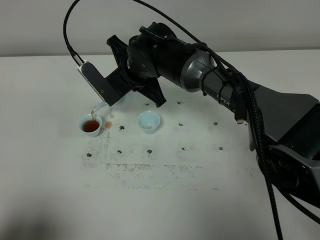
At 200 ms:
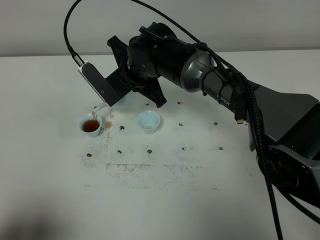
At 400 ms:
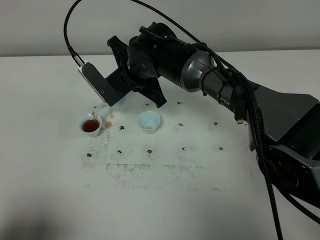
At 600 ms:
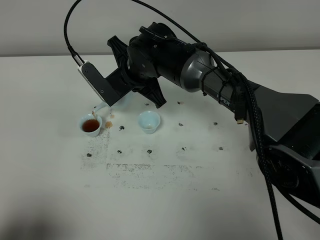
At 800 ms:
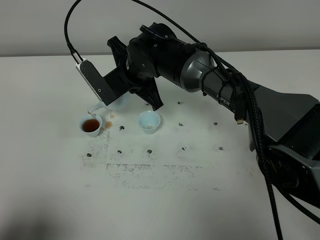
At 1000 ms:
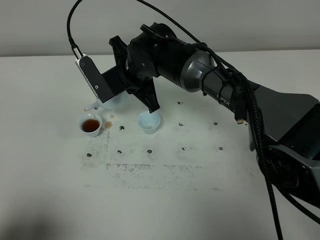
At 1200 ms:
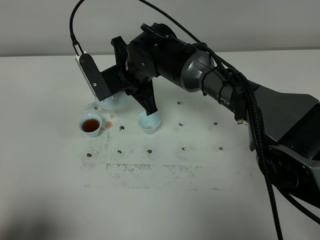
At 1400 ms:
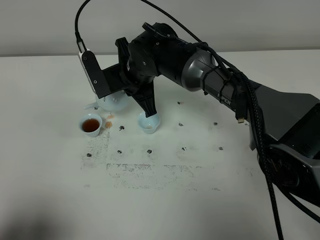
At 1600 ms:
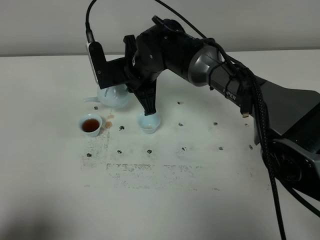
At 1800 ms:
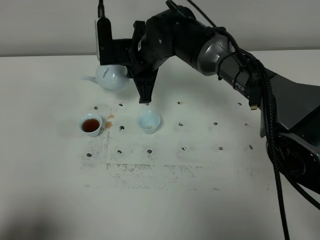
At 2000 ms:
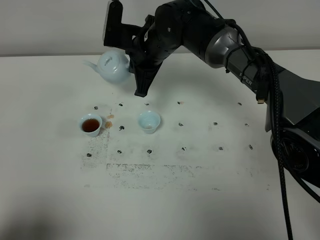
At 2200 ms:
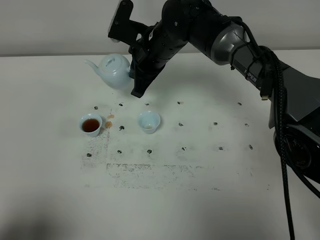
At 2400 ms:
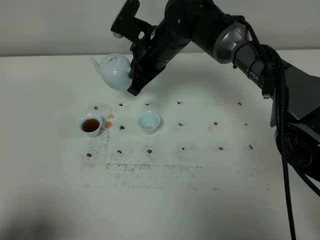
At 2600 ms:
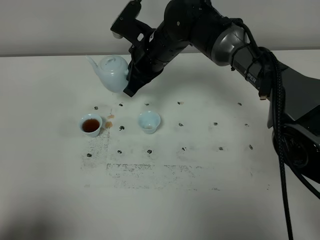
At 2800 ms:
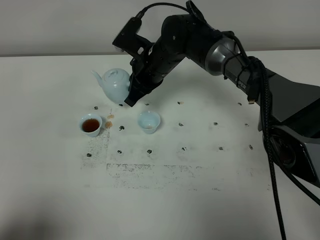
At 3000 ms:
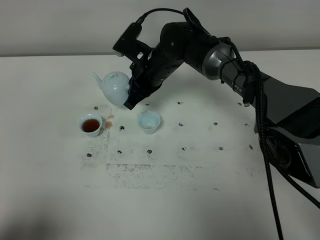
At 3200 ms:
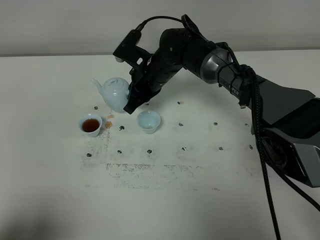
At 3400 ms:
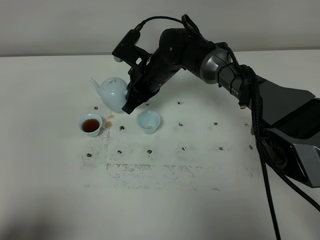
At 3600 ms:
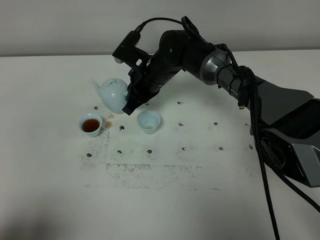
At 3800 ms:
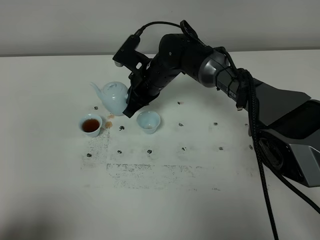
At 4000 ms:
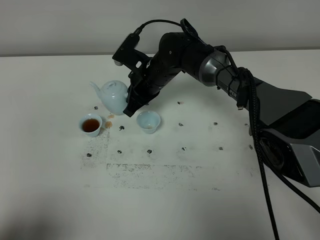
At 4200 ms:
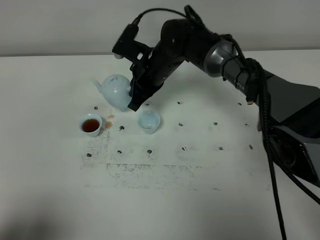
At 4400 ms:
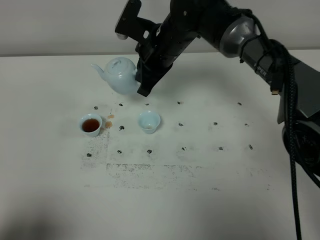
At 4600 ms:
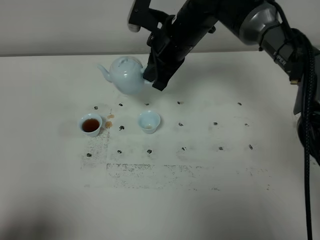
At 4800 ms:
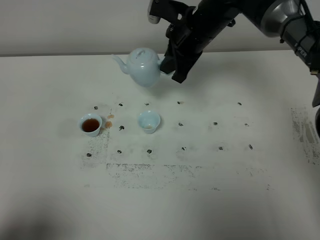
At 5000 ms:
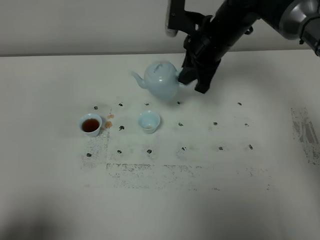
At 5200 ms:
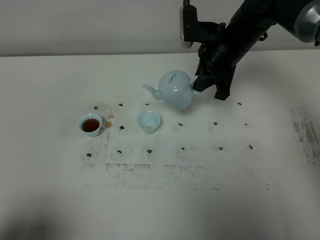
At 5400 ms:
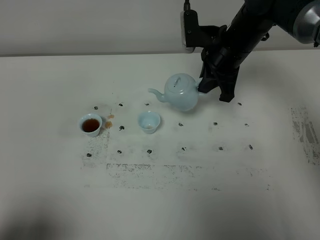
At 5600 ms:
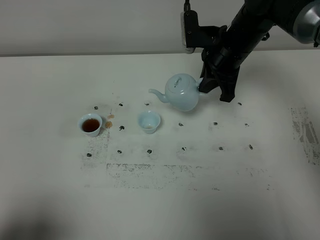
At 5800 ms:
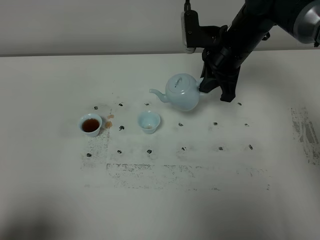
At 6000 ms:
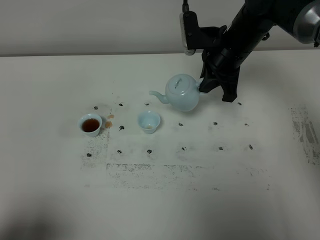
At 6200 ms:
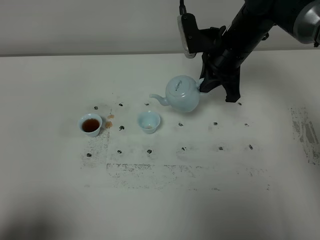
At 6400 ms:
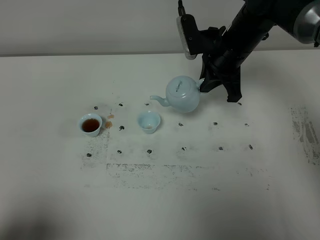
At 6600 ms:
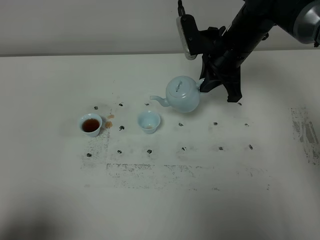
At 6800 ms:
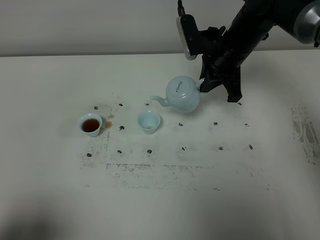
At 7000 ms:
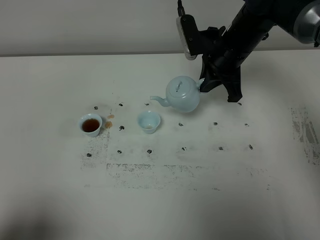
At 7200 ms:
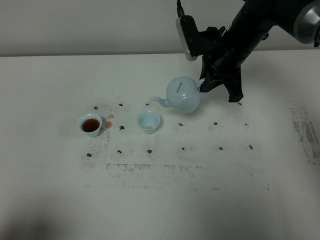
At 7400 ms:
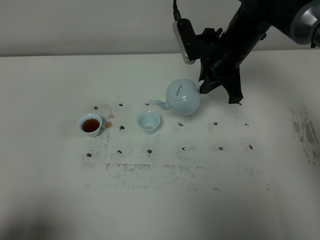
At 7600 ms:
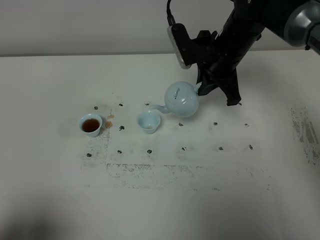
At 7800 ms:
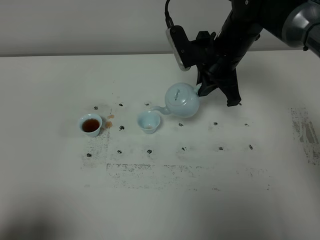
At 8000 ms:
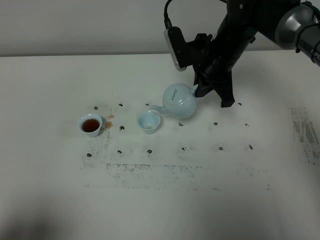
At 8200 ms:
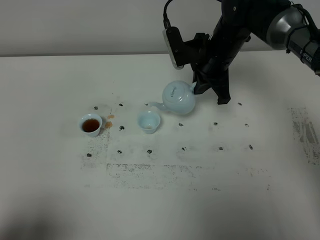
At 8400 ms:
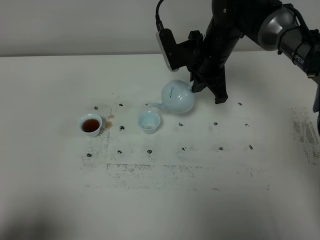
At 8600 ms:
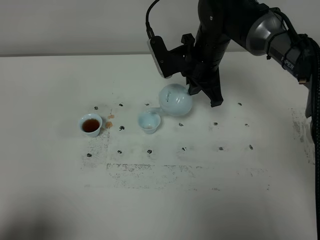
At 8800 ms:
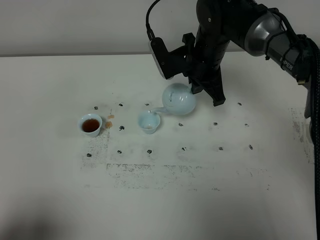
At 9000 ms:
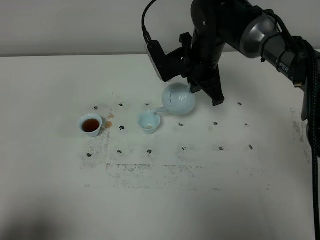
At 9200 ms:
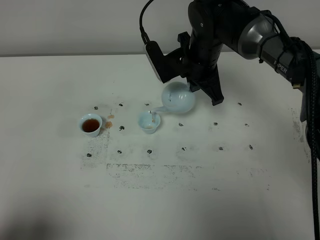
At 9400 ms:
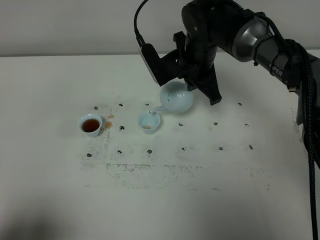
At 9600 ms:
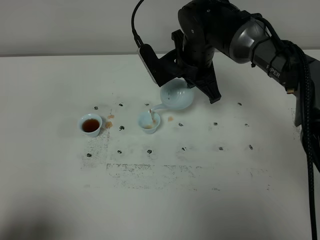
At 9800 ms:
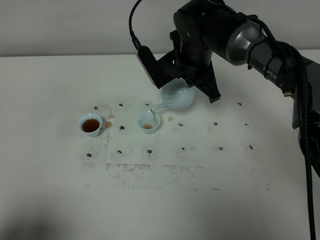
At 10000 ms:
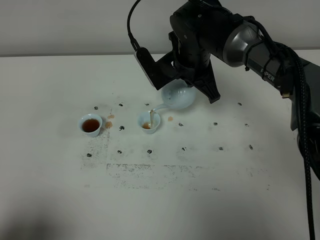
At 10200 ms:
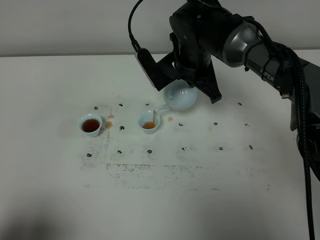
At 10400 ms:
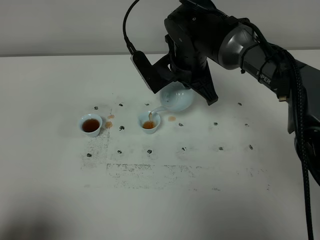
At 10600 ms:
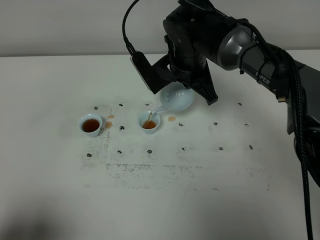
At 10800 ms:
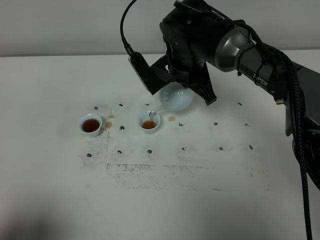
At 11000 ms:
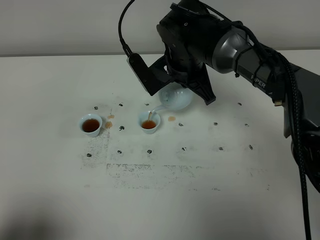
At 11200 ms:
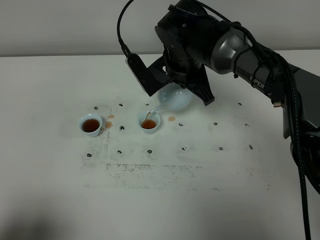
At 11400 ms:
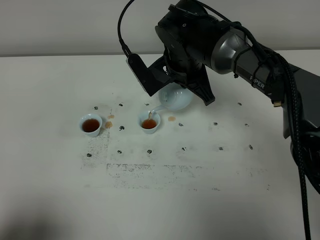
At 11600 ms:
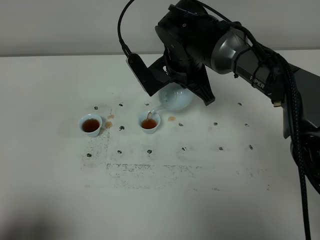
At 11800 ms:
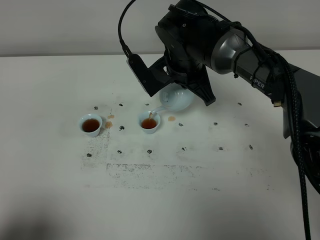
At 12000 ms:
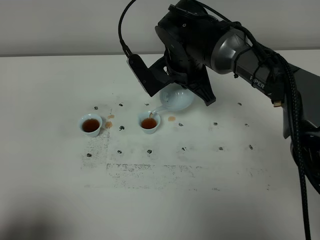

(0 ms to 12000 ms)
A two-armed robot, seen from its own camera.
Task of the whole recording: grasp the blue porcelain teapot and pour the tea into the two blue porcelain teacups one by one, put the blue porcelain teapot back in its original place.
1600 ms - 3000 ms: The right gripper moves about 5 cm.
3000 ms - 4400 ms: The right gripper shifts some 5 cm upward.
4400 ms - 6000 ms: The right gripper goes roughly 10 cm to the right.
6000 ms - 7600 ms: There are only small adjustments of the grippers.
7600 ms - 9000 ms: There are only small adjustments of the grippers.
9000 ms - 10400 ms: There are only small adjustments of the grippers.
10400 ms - 12000 ms: Both grippers stay about where they are.

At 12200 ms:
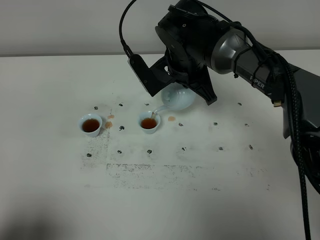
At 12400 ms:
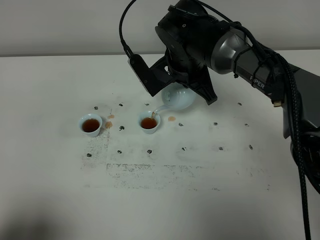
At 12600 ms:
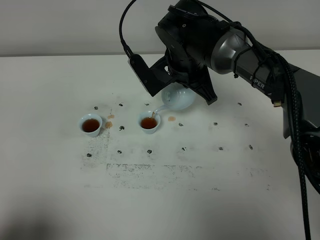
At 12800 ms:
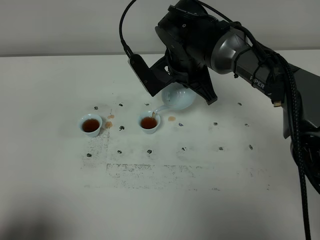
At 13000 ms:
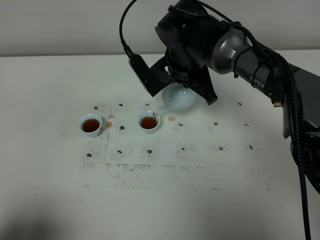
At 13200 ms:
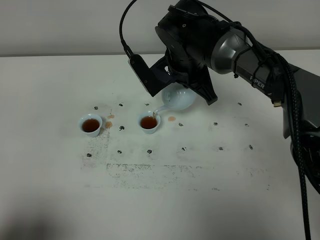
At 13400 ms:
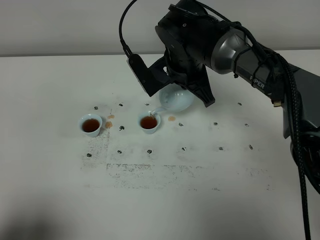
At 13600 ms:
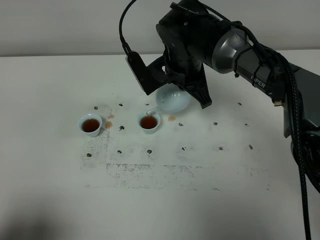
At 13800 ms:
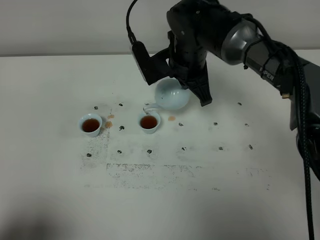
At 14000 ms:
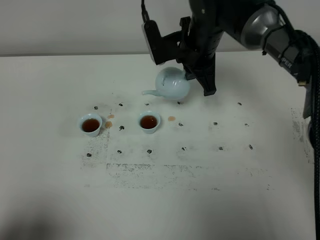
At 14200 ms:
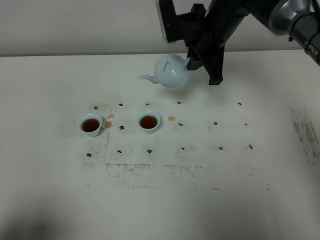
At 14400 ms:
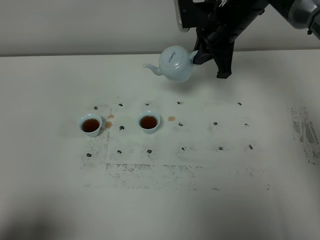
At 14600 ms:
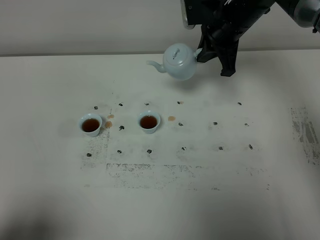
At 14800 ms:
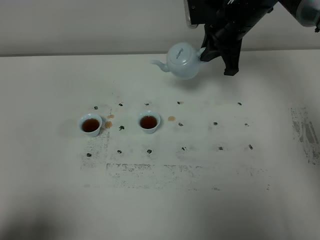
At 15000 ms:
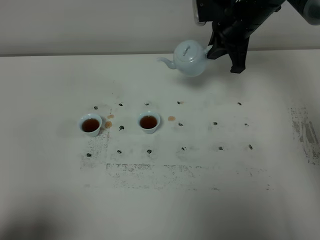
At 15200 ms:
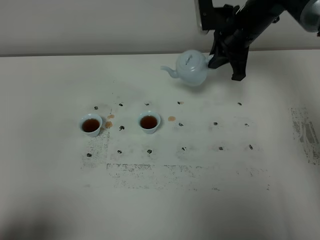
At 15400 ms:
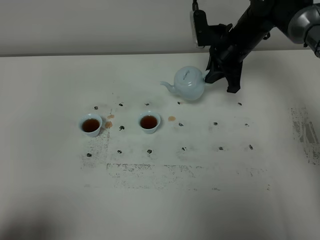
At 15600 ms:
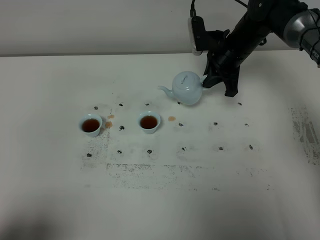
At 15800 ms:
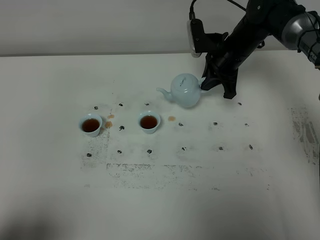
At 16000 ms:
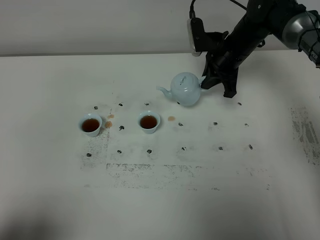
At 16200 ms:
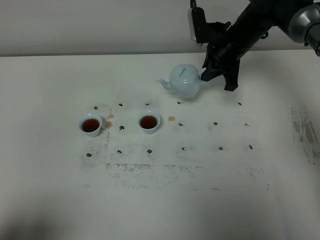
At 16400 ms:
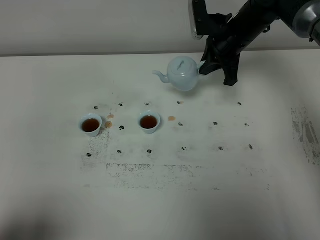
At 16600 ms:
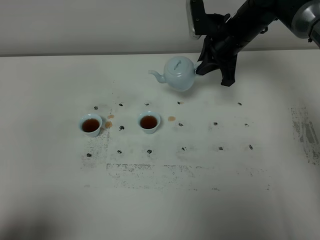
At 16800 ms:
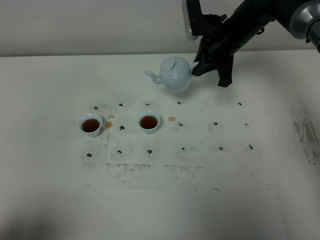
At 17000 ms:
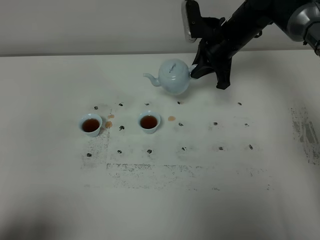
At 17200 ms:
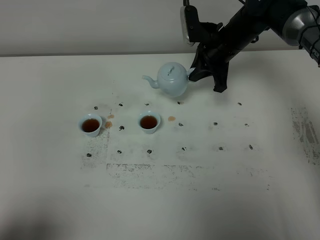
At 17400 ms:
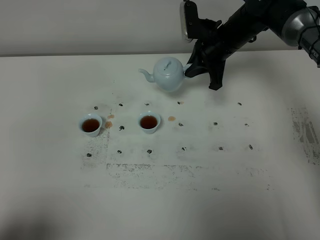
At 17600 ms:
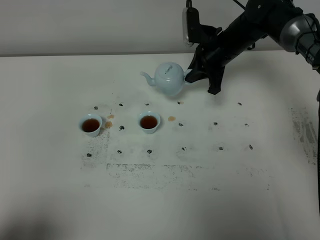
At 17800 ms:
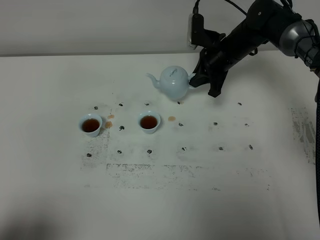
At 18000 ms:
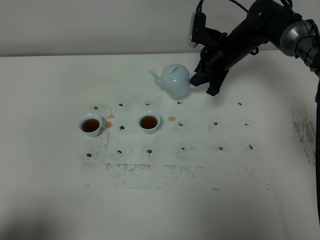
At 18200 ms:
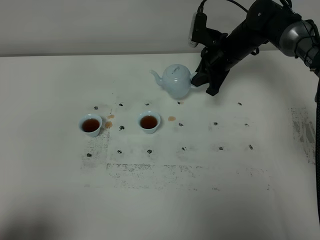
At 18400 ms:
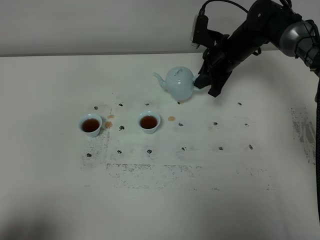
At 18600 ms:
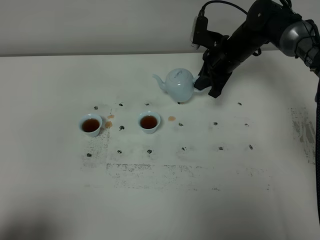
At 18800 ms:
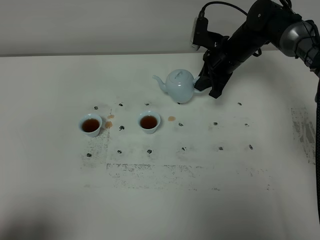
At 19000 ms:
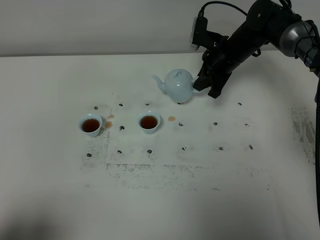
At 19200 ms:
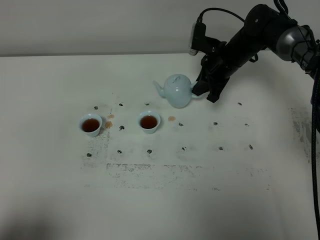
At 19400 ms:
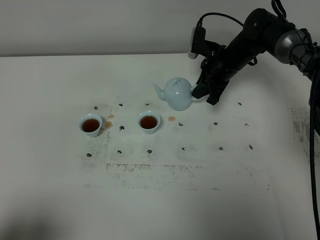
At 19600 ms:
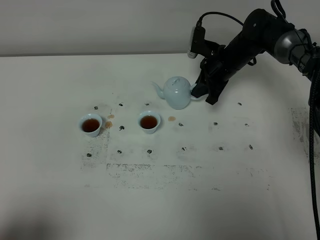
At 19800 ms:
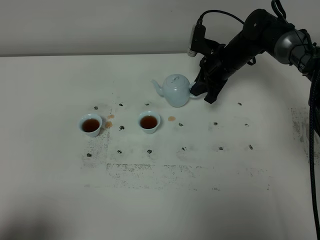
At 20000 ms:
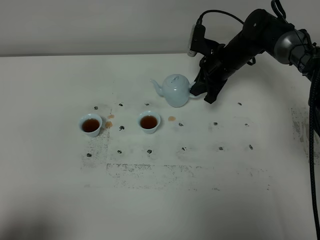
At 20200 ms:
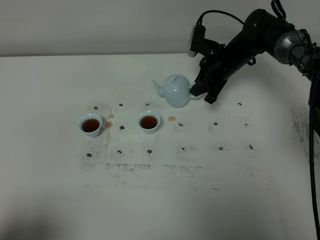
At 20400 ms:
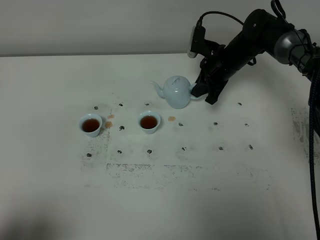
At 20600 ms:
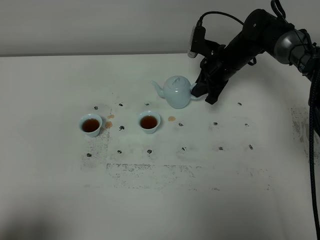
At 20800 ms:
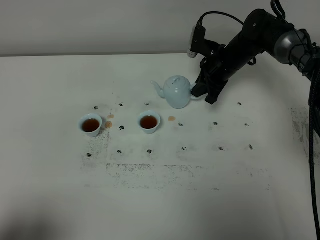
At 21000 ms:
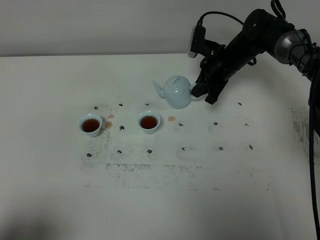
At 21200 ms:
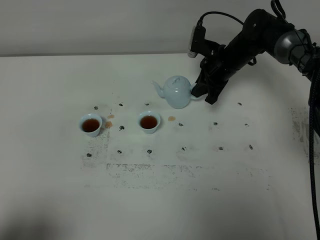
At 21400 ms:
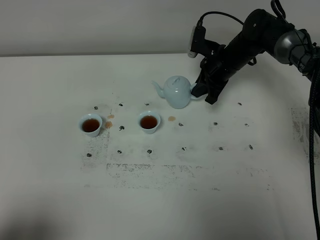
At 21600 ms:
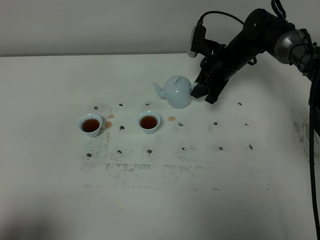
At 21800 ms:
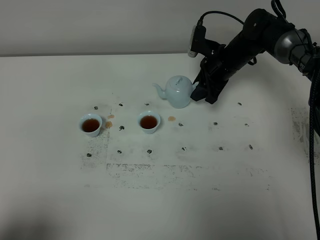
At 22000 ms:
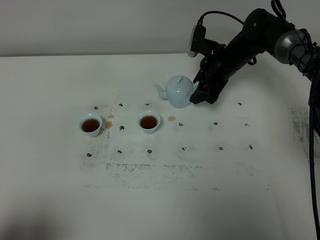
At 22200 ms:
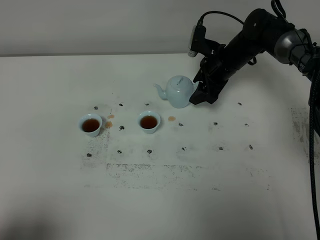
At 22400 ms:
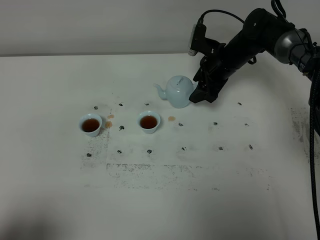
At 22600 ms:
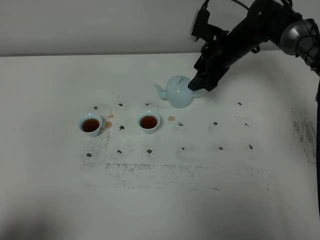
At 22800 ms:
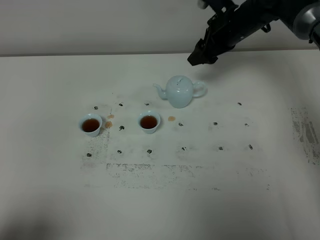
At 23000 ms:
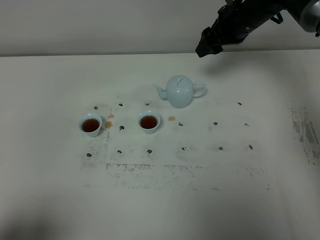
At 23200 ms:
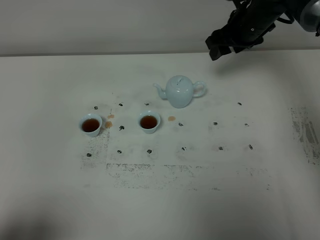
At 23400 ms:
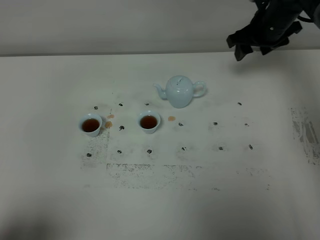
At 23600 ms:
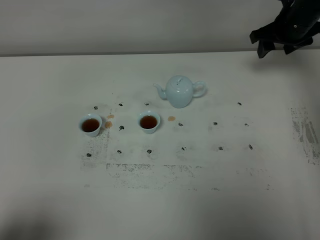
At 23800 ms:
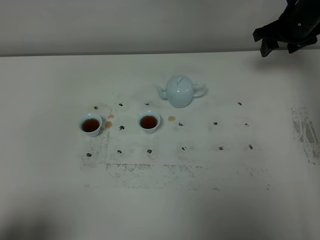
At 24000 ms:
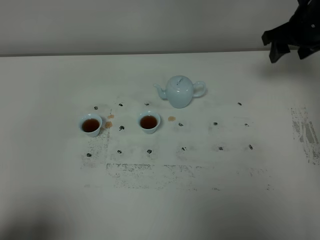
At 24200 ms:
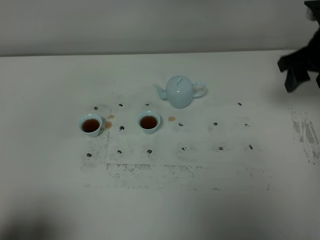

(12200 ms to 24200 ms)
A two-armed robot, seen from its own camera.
Task of the whole recording: grasp the blue porcelain teapot and pour the tea into the two blue porcelain teacups one by one, put the blue porcelain teapot back in its original place.
12200 ms - 13800 ms: The grippers move only a little.
13800 ms - 15200 ms: The right gripper heads to the right and forward, covering roughly 10 cm.
15200 ms - 16600 ms: The grippers move only a little.
16600 ms - 18200 ms: The right gripper is displaced downward by approximately 5 cm.
18200 ms - 19800 ms: The grippers make only small movements.
19800 ms - 21200 ms: Neither gripper changes place.
21200 ms - 22600 ms: The right gripper opens.
22600 ms - 24200 ms: The right gripper moves backward, to the right and upward, about 20 cm.
